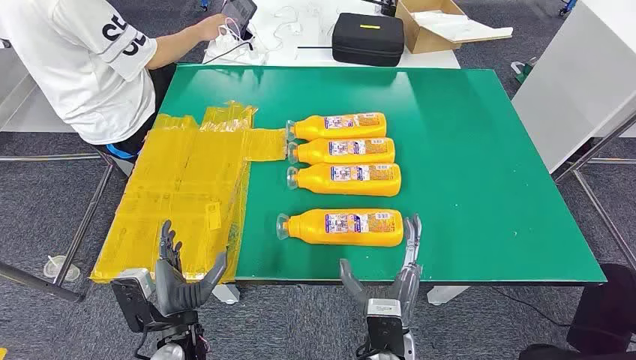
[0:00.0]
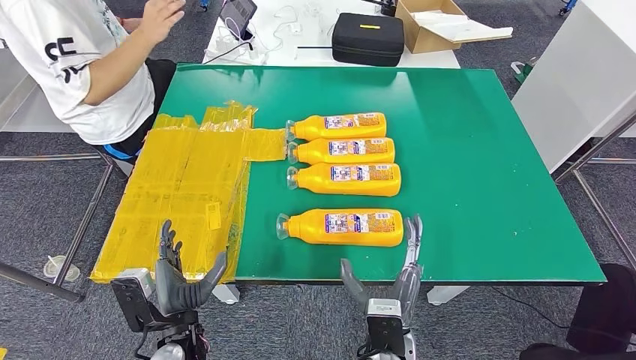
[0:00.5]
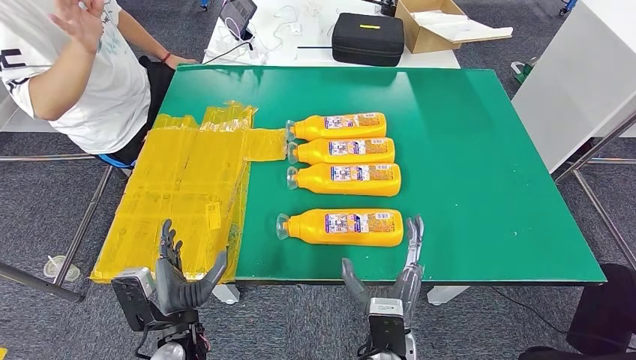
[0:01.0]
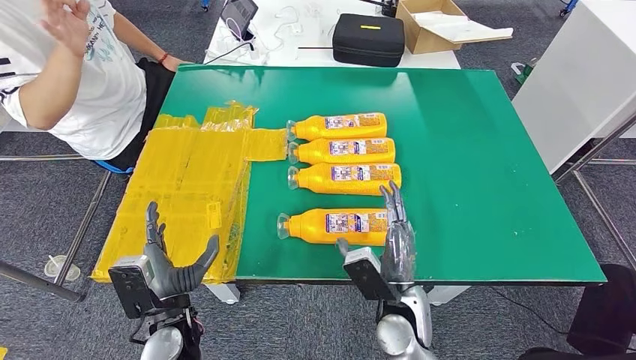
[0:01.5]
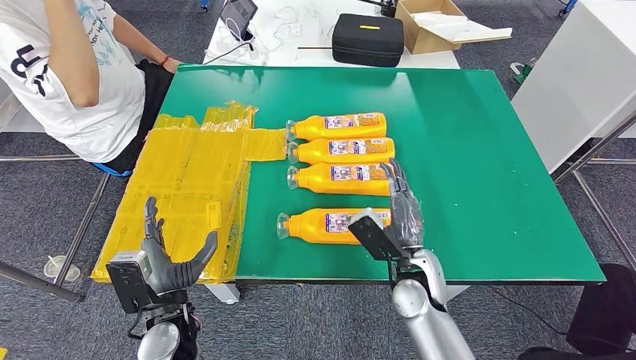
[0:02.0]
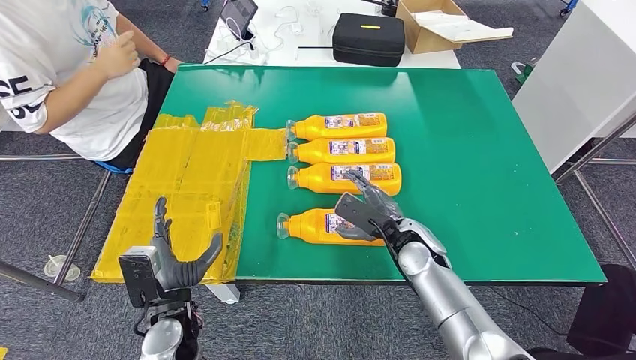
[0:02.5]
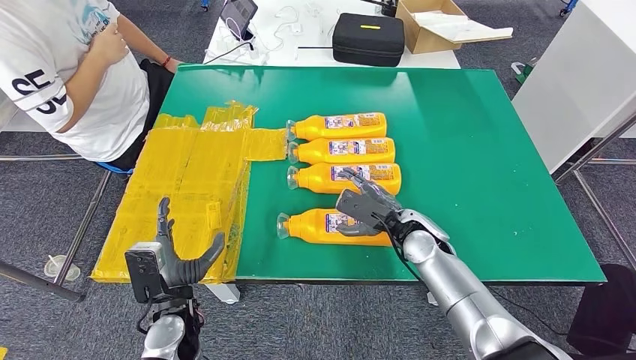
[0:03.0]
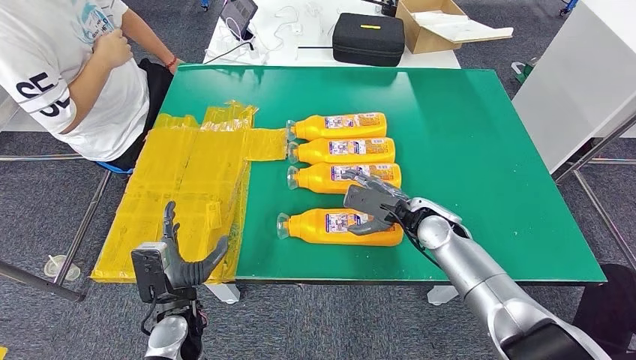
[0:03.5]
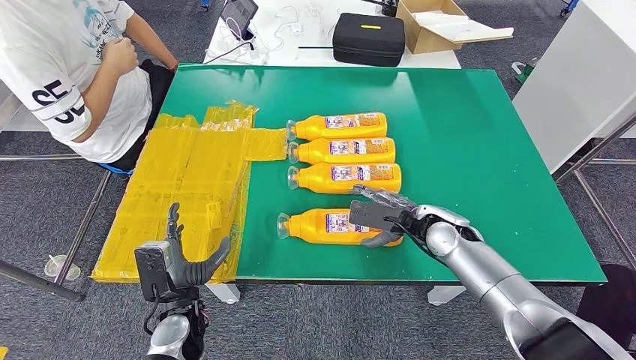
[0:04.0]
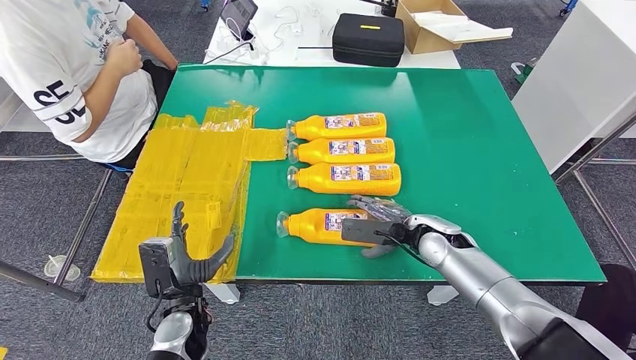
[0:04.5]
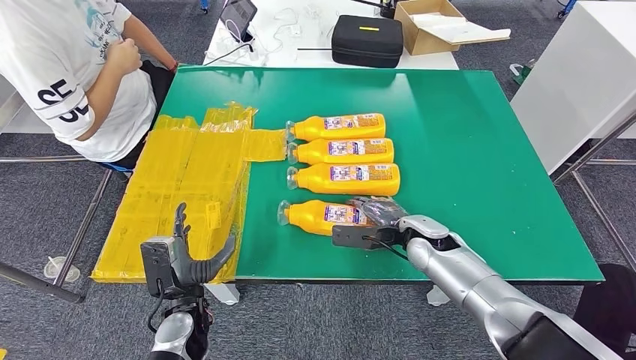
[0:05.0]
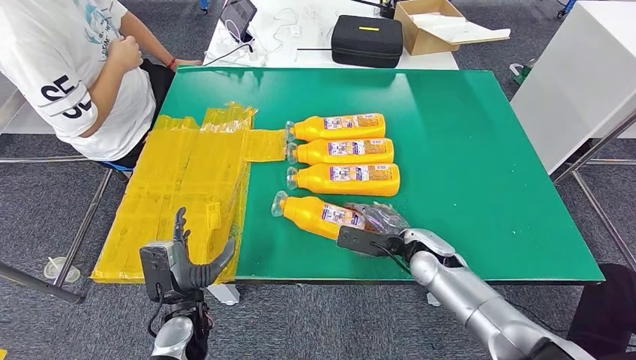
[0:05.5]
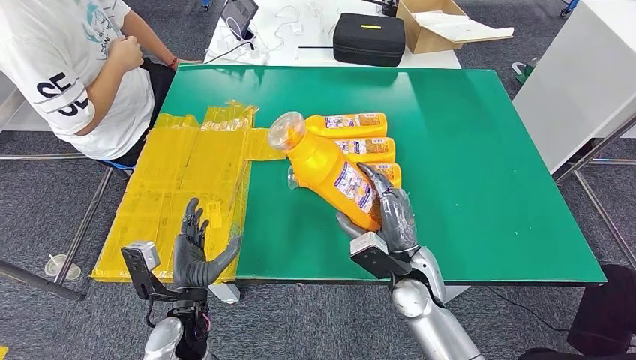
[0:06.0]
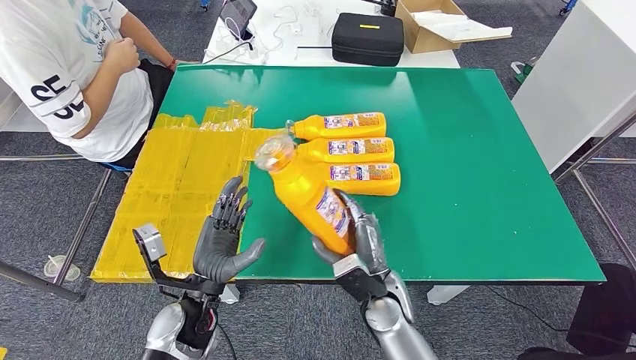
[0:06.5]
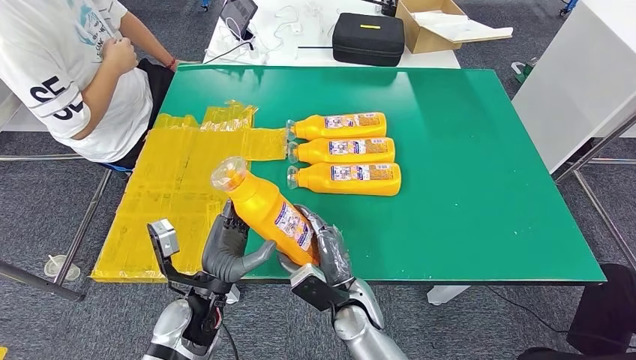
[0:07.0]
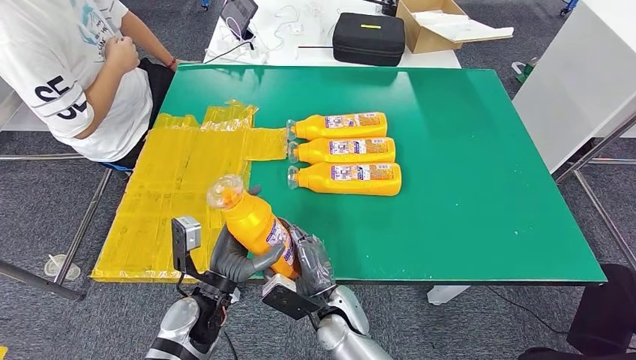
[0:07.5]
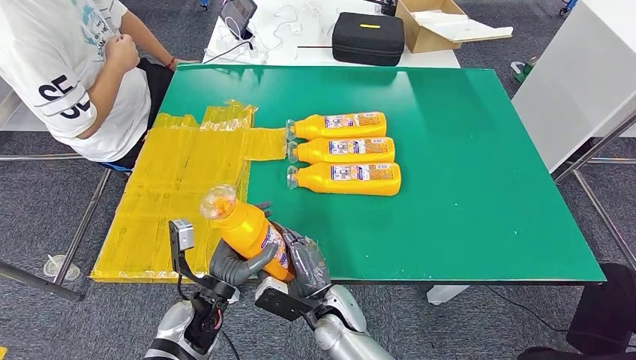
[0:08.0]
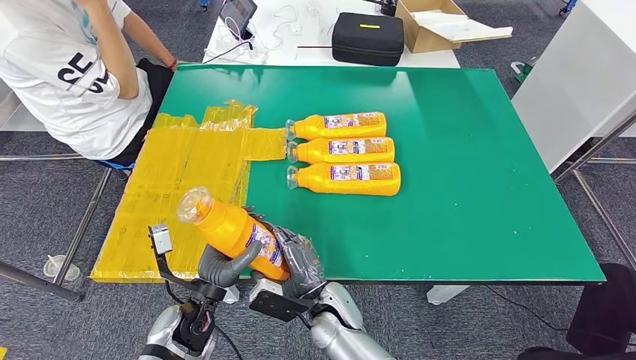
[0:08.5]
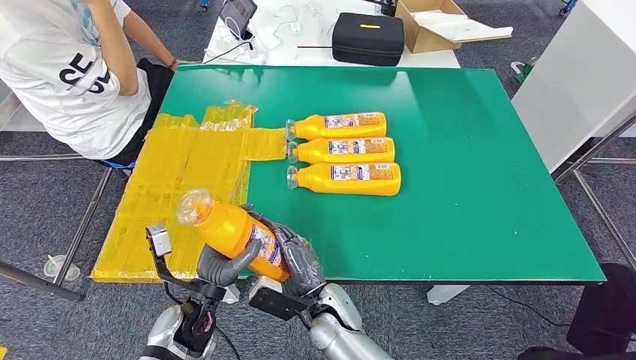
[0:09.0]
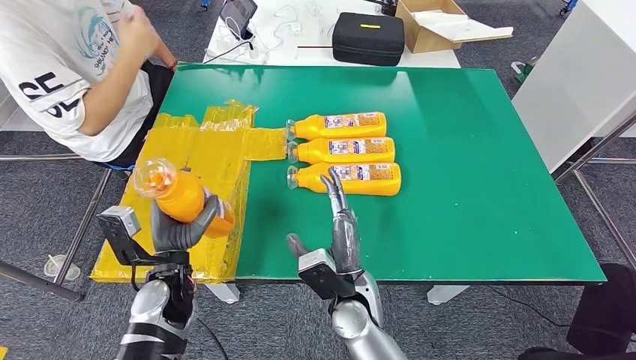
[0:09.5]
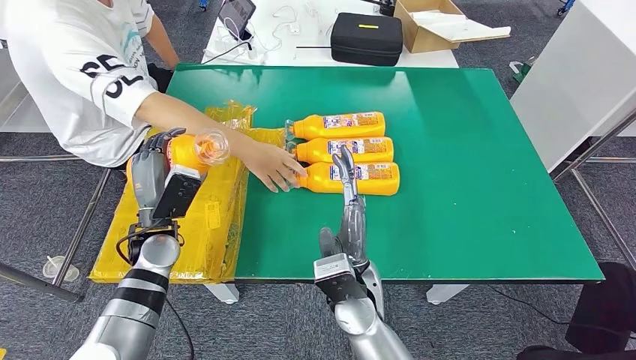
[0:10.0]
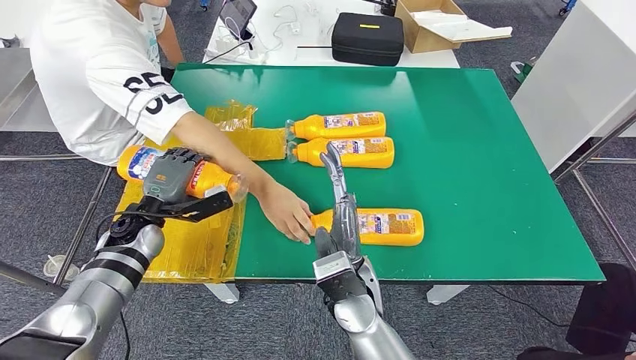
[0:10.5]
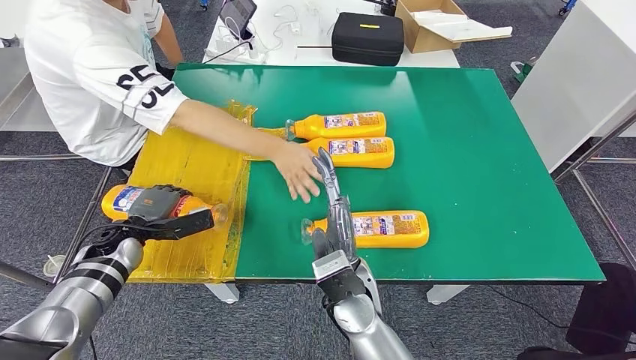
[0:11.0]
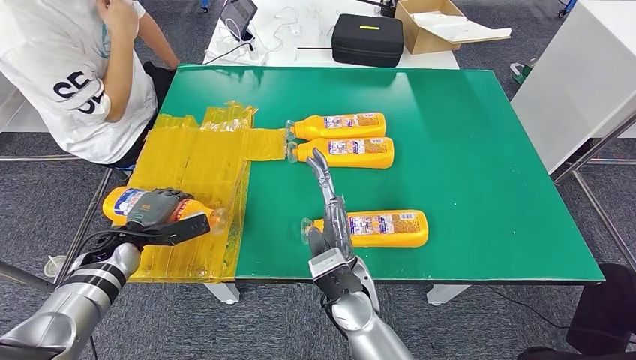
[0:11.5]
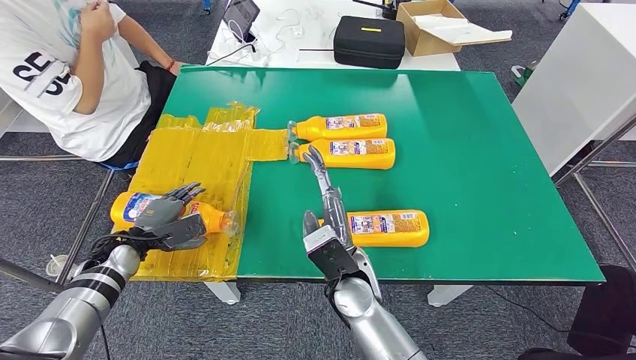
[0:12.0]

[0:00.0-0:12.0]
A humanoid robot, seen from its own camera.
Step, 0:00.0 to 0:05.5: Take the fast-moving consumer goods bottle from the table.
0:02.0 to 0:04.0: The right hand shifts roughly 10 cm forward and to the right.
0:04.0 to 0:06.0: The right hand travels backward and to the left by roughly 10 cm.
0:06.0 to 0:08.0: The right hand heads to the left and downward, covering approximately 15 cm.

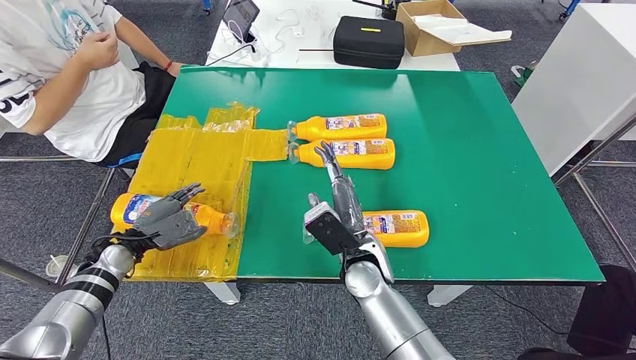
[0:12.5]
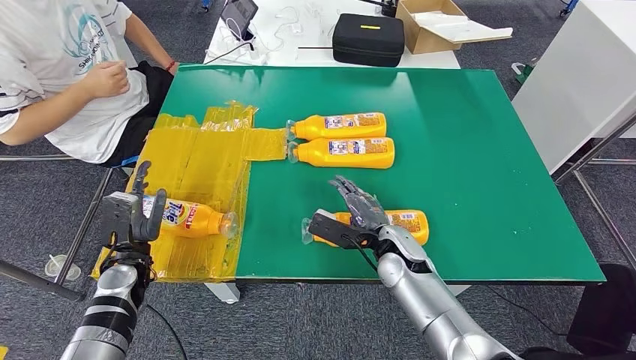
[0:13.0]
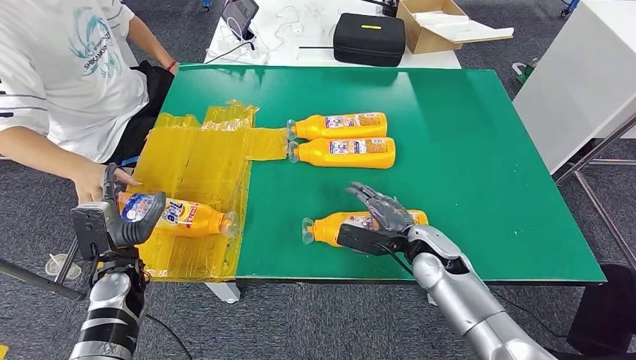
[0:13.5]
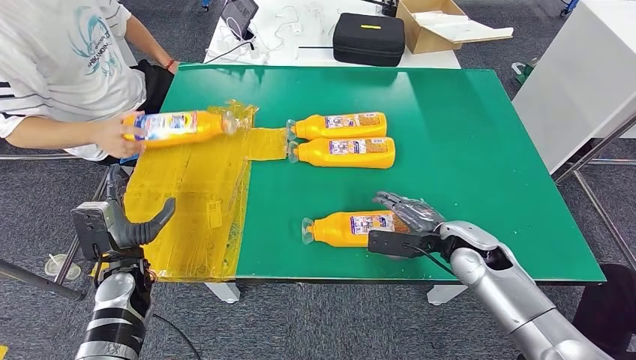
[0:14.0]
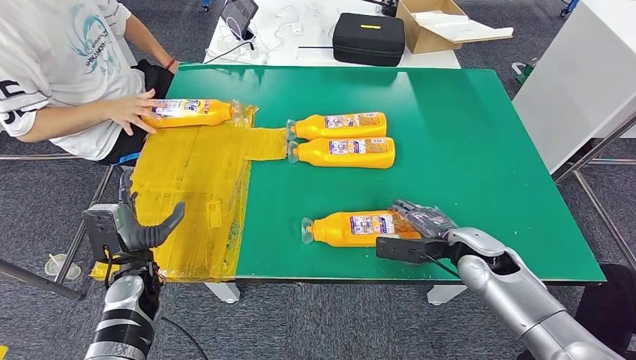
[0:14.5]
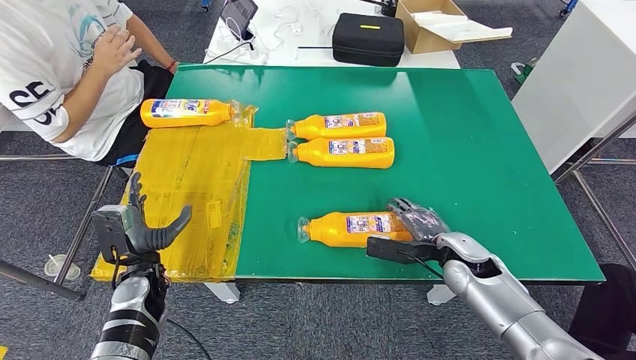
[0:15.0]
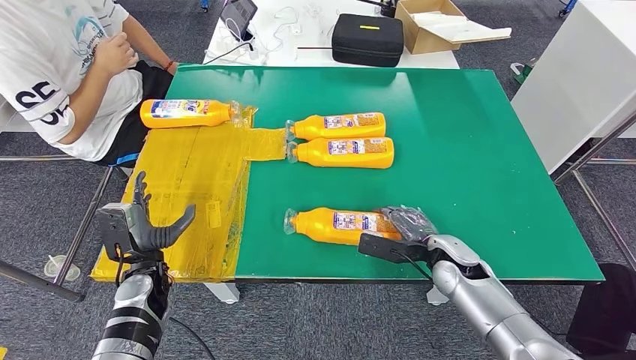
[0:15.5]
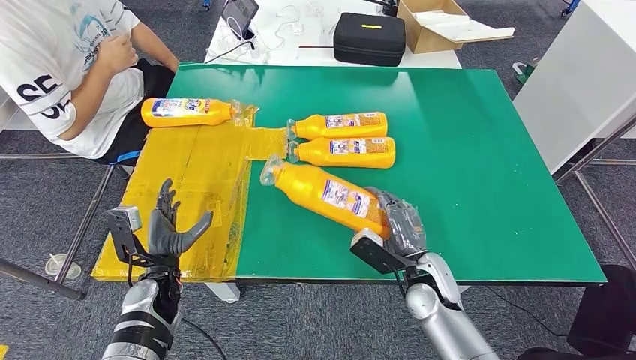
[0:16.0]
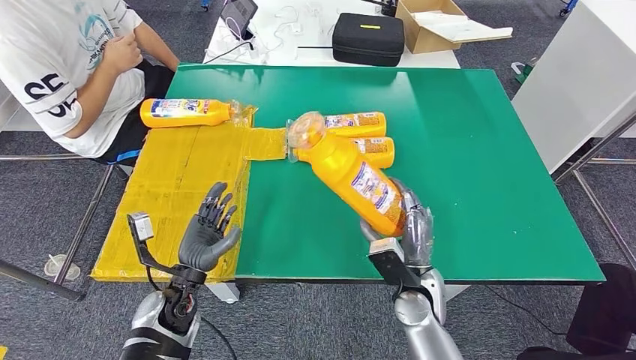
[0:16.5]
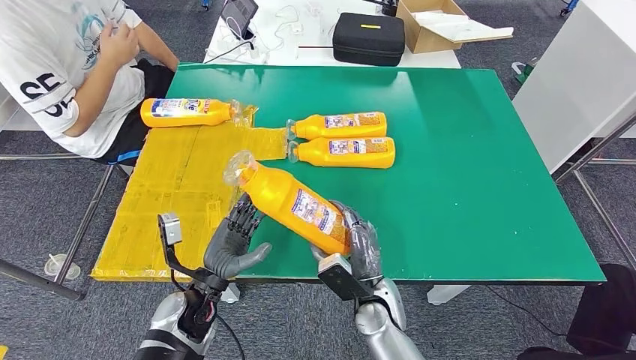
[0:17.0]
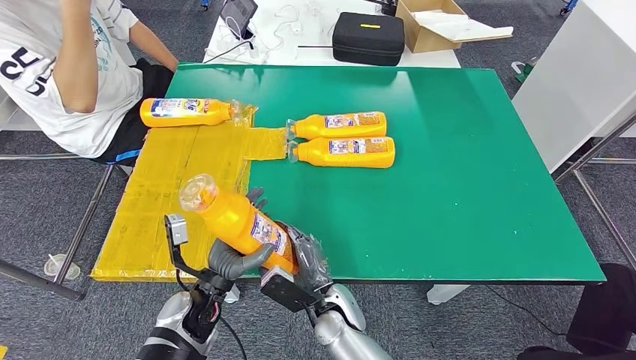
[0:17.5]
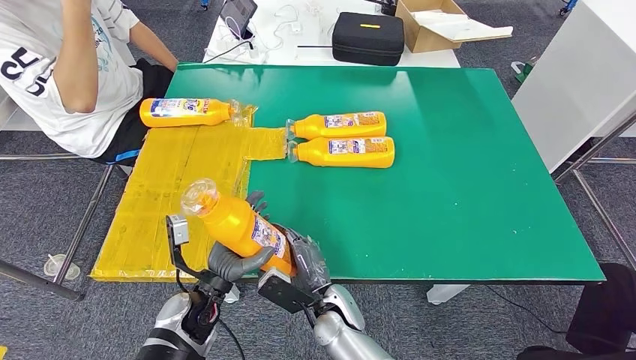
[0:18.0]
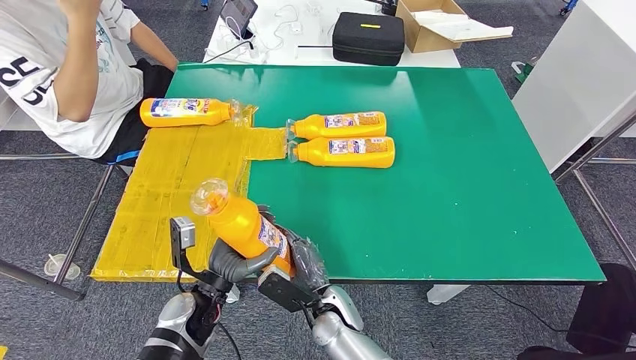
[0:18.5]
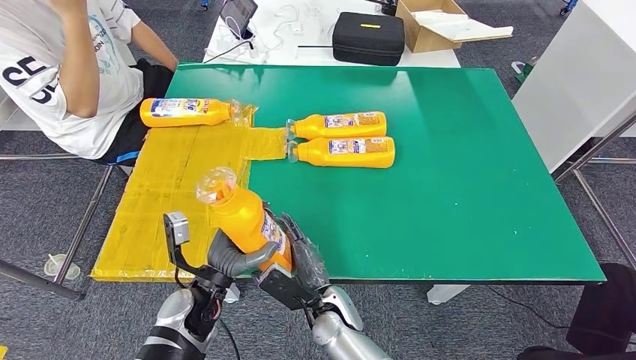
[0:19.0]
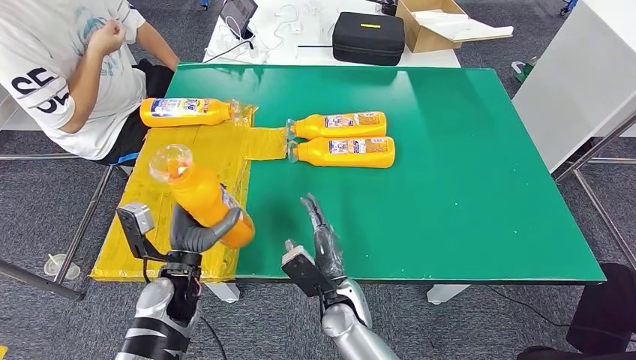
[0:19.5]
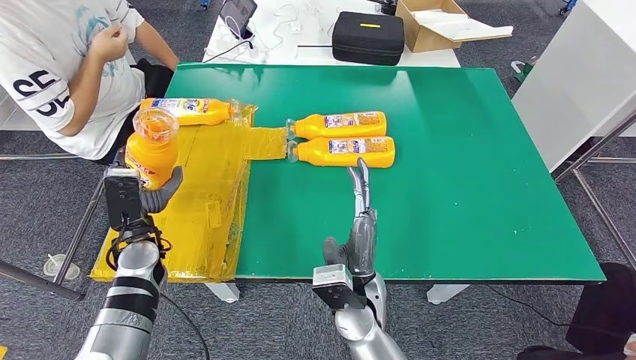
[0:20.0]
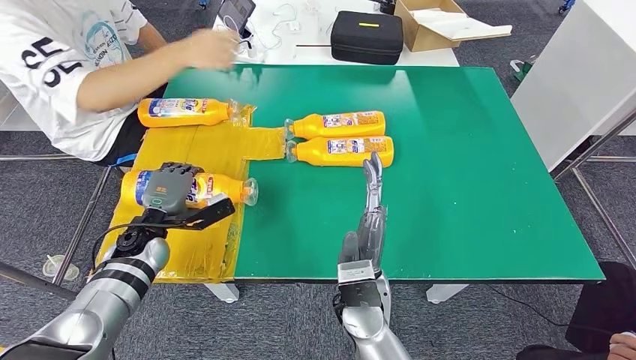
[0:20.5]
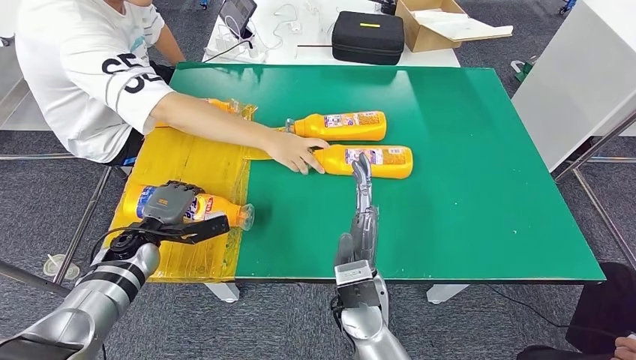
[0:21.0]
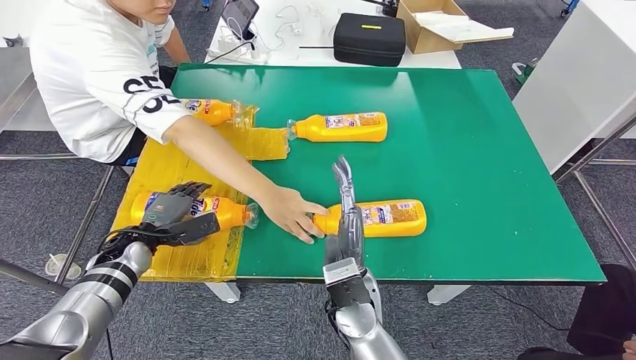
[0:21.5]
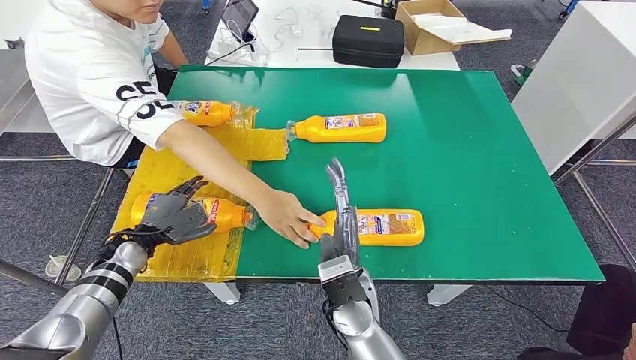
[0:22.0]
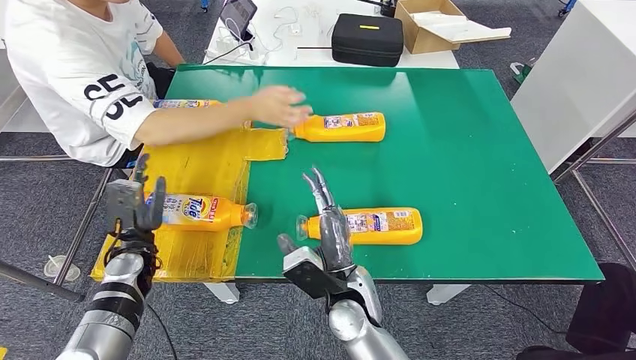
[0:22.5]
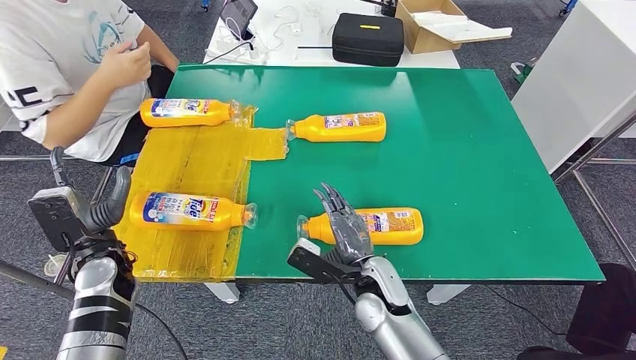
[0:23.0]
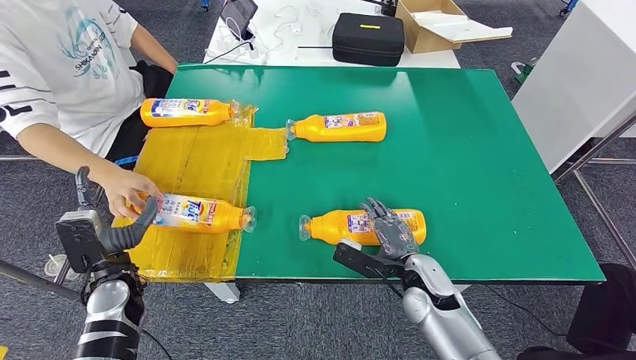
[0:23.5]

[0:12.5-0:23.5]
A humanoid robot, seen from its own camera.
Step, 0:14.0 to 0:16.5: Pick up the fast-moving consumer goods bottle from the table.
Step, 0:17.0 to 0:21.5: Flip the fast-moving consumer goods bottle to the front side.
0:18.0 to 0:20.0: The right hand heads upward, covering some 10 cm; the left hand is displaced forward, to the left and upward by about 15 cm.
